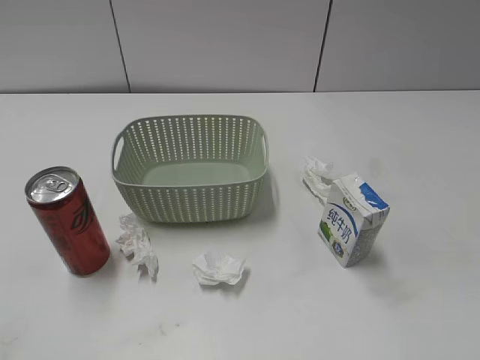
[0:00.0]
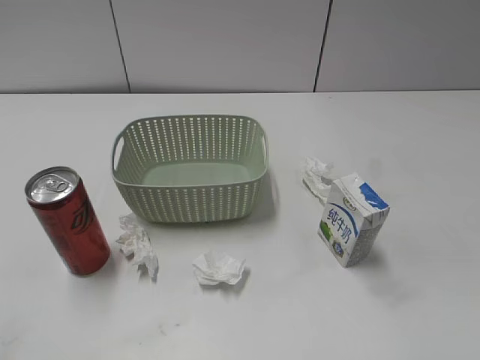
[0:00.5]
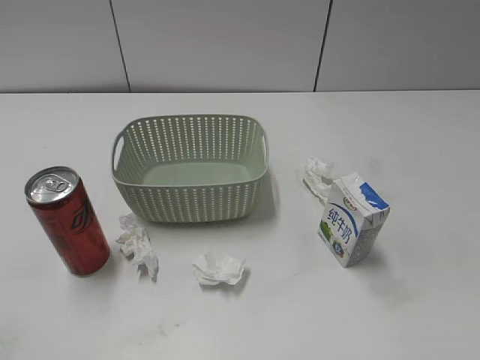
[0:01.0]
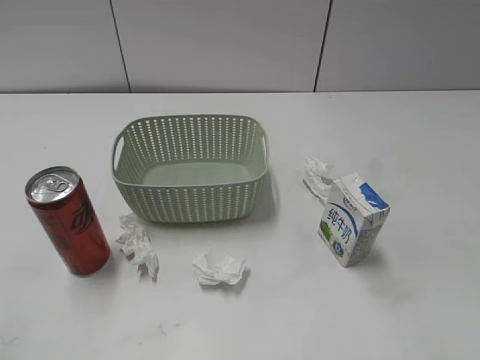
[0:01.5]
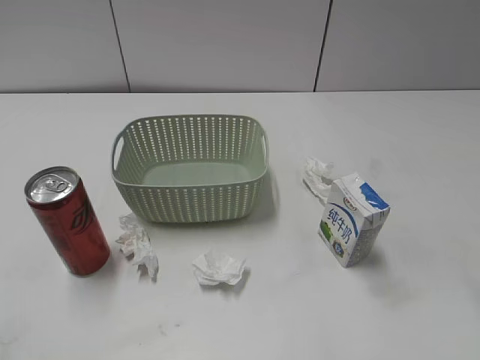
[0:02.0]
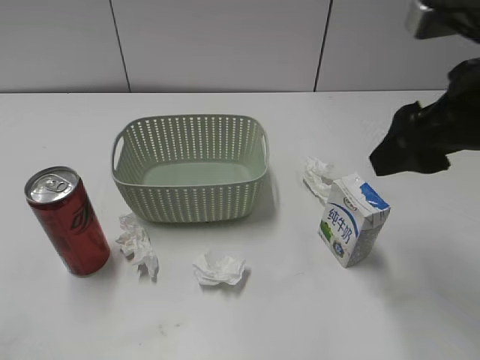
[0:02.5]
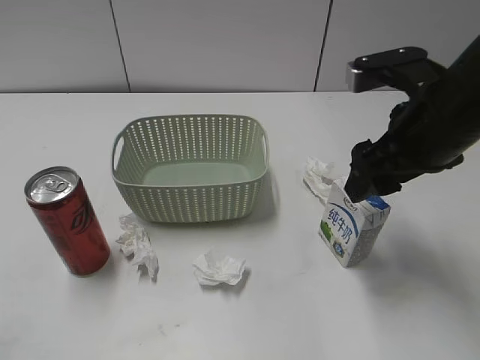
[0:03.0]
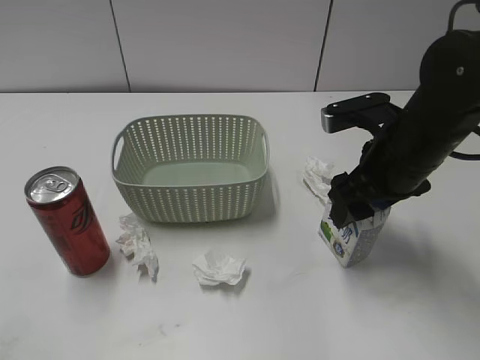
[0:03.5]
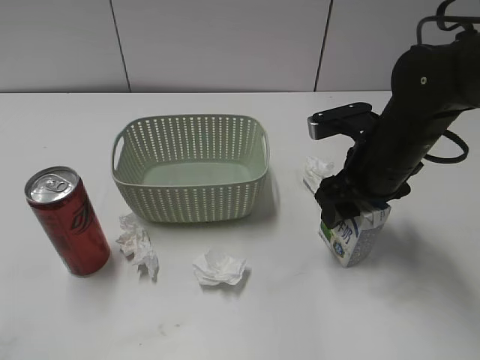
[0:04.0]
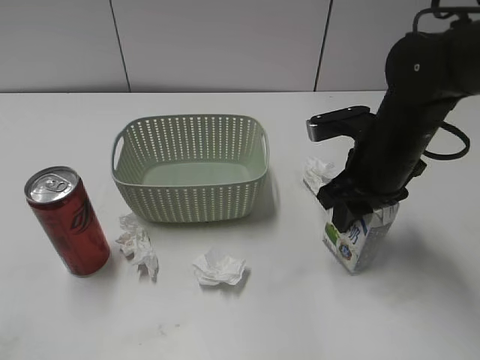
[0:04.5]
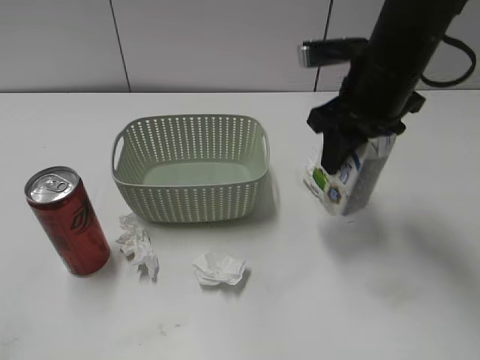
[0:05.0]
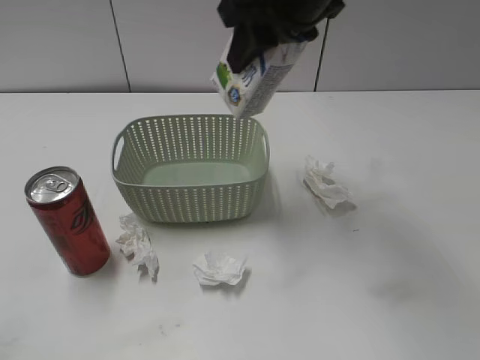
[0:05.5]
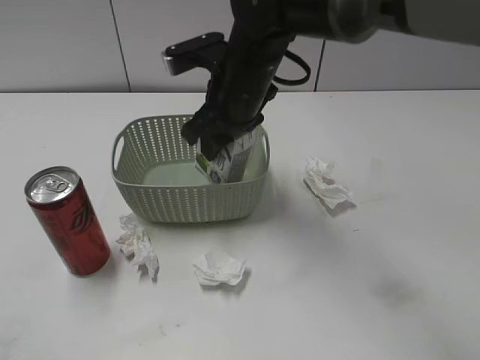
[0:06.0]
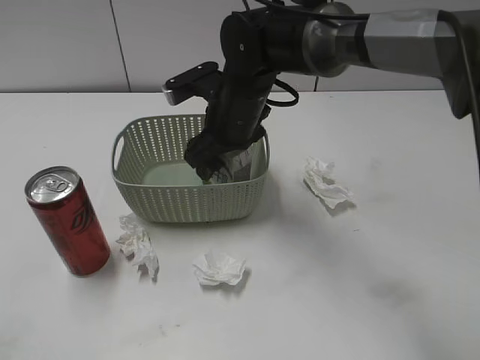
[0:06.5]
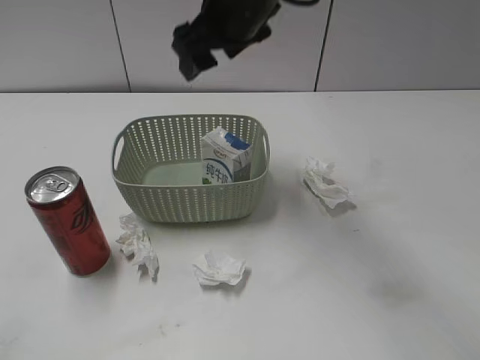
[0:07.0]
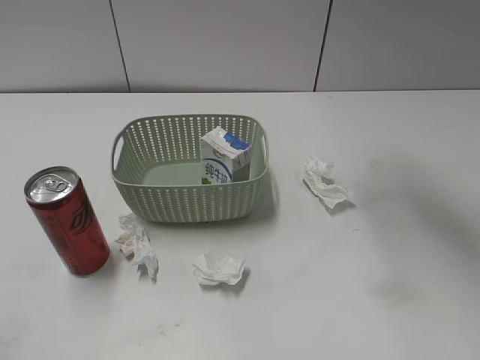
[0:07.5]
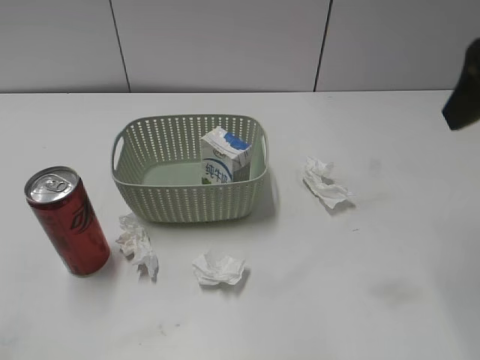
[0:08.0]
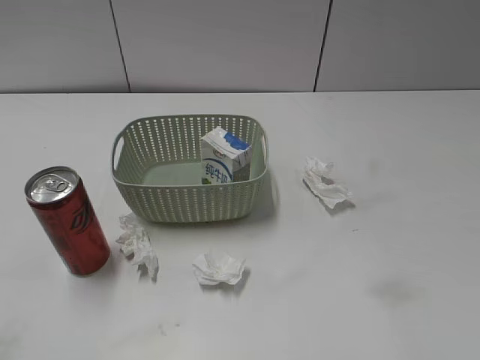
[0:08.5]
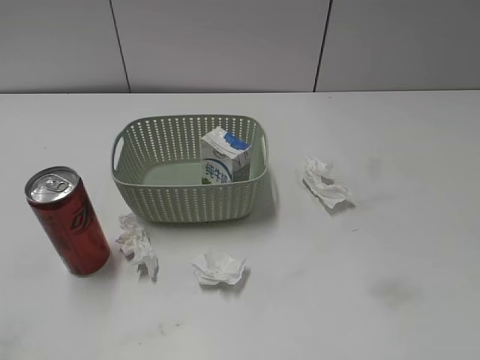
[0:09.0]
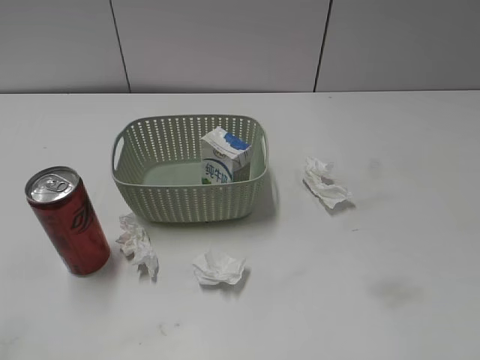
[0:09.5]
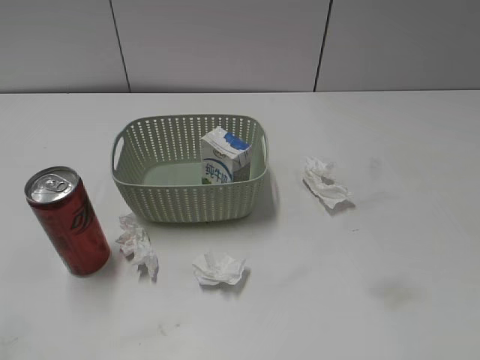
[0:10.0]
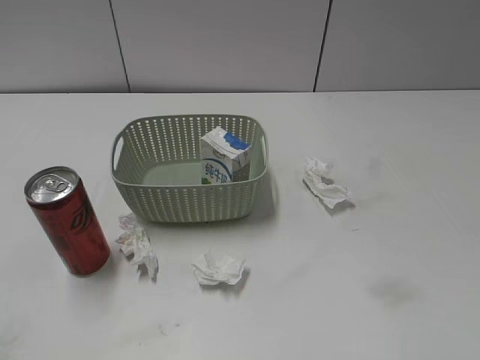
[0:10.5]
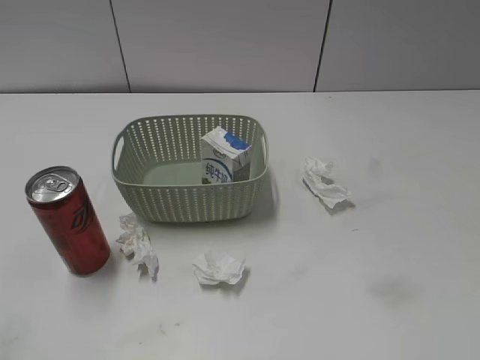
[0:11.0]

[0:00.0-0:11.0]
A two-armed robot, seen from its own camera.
Step, 0:02.5 to 0:04.0: Grasp the milk with right gripper.
Step, 0:04.5 to 0:07.0: Place the milk in the basket with right gripper.
0:02.0 to 0:03.5: The right gripper goes about 25 cm downward, forward and to the left.
0:03.5 to 0:05.5: The right gripper travels upward, to the left and forward by approximately 20 cm, and closes up.
0:05.5 to 0:07.5: The right gripper moves to the right, some 10 cm, moves approximately 15 cm downward and comes back, and opens.
0:07.5 to 0:09.0: The right gripper moves backward and to the right, some 35 cm.
